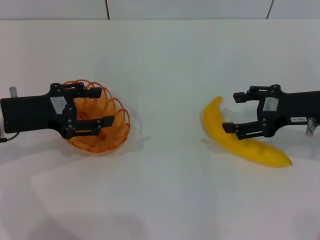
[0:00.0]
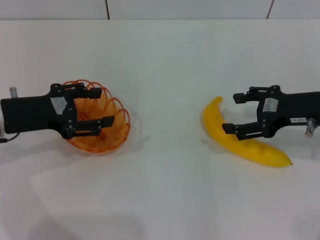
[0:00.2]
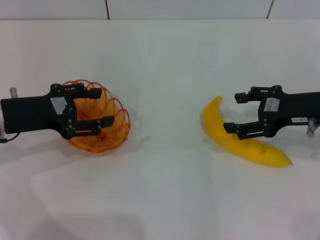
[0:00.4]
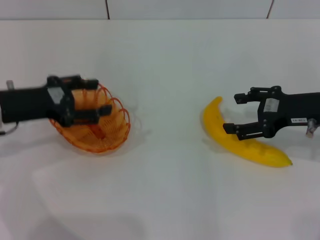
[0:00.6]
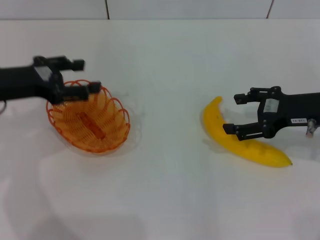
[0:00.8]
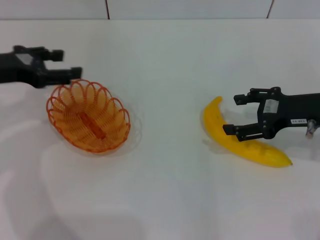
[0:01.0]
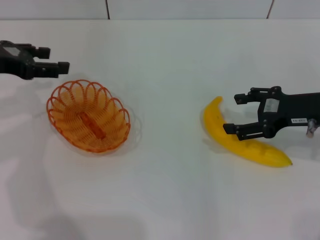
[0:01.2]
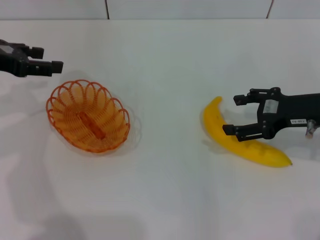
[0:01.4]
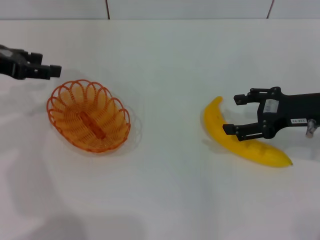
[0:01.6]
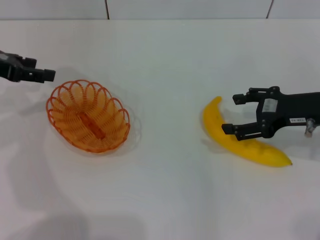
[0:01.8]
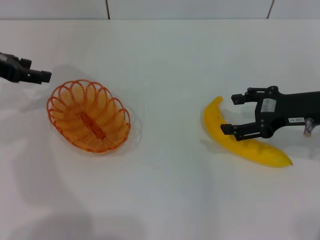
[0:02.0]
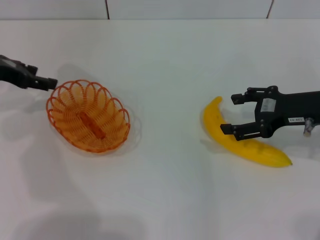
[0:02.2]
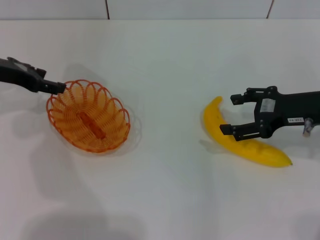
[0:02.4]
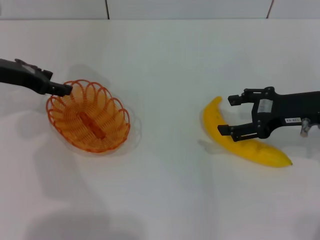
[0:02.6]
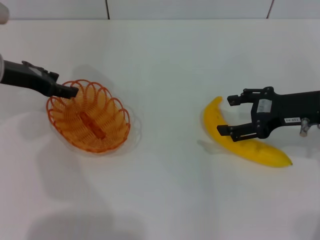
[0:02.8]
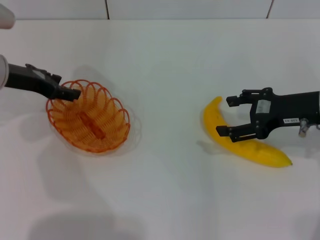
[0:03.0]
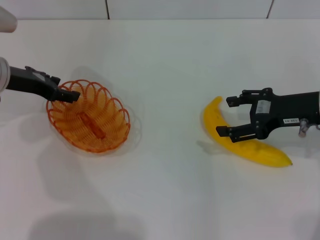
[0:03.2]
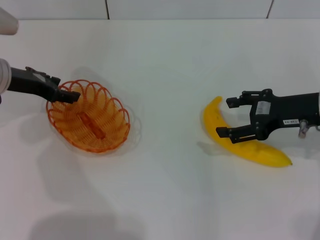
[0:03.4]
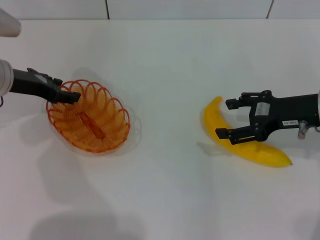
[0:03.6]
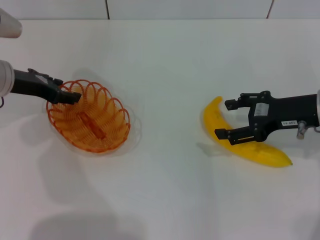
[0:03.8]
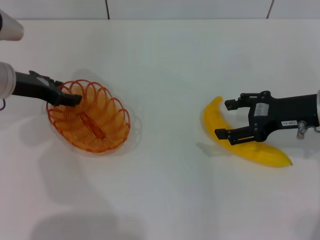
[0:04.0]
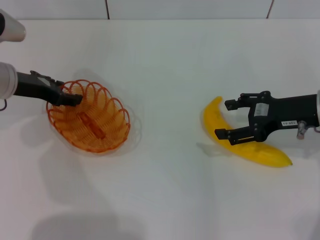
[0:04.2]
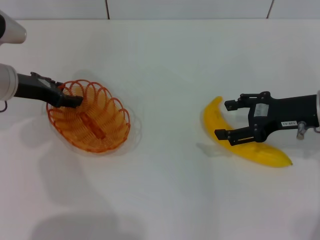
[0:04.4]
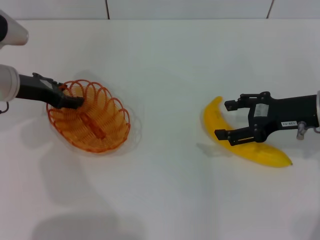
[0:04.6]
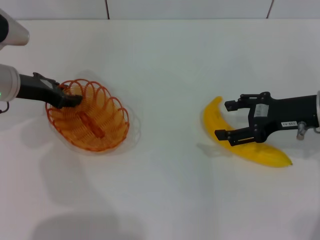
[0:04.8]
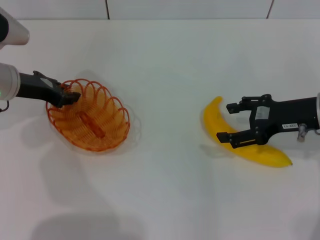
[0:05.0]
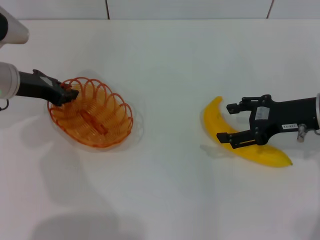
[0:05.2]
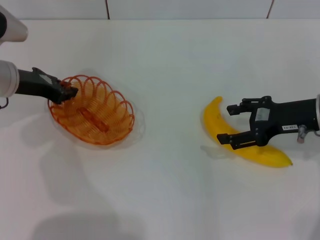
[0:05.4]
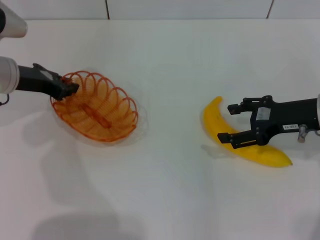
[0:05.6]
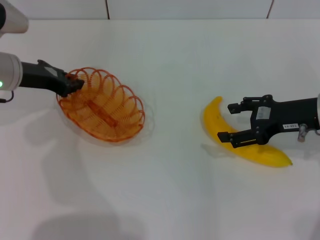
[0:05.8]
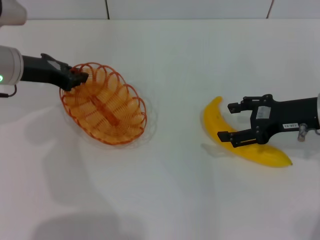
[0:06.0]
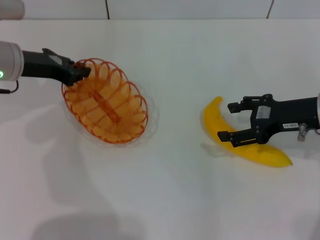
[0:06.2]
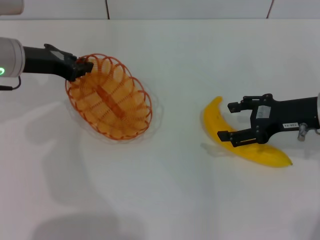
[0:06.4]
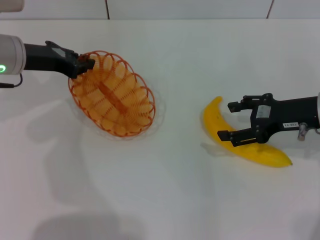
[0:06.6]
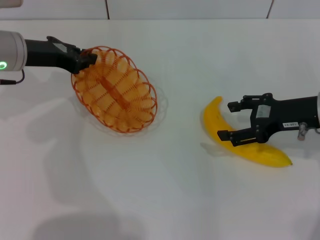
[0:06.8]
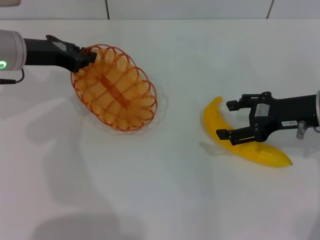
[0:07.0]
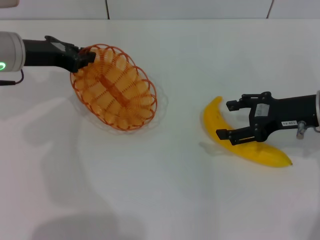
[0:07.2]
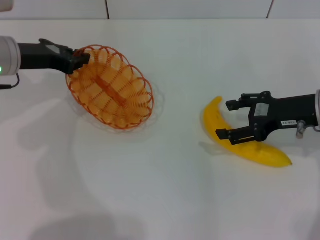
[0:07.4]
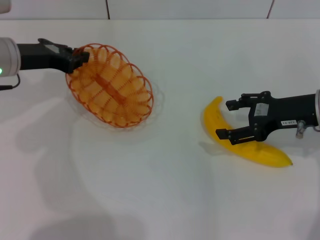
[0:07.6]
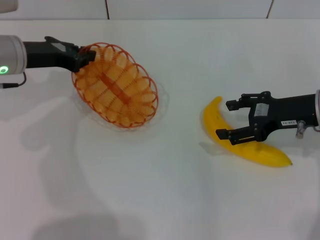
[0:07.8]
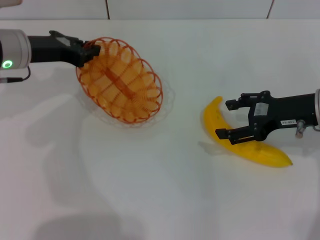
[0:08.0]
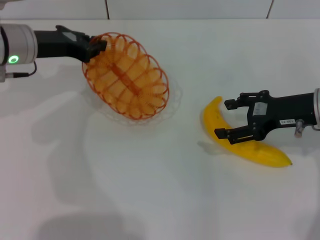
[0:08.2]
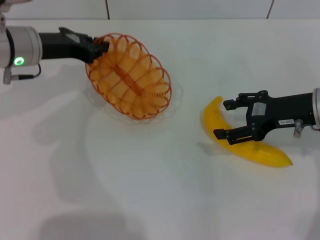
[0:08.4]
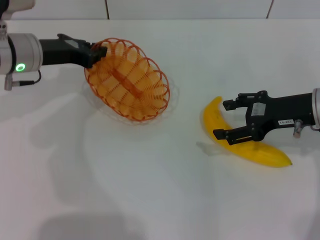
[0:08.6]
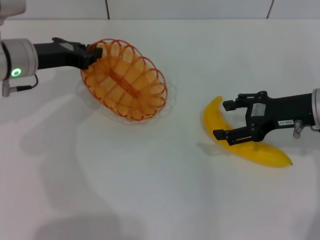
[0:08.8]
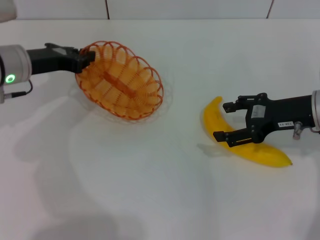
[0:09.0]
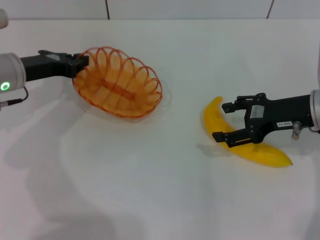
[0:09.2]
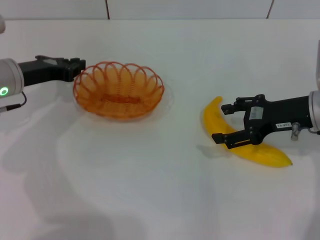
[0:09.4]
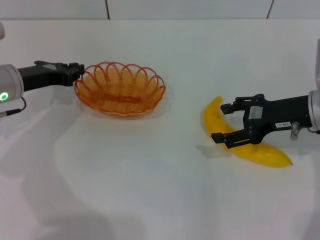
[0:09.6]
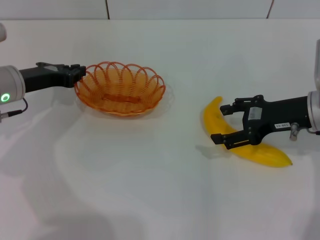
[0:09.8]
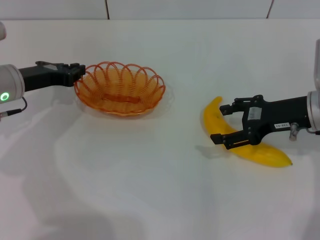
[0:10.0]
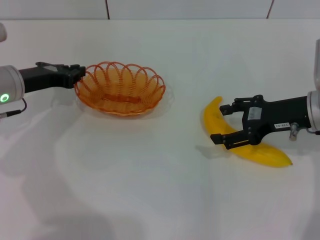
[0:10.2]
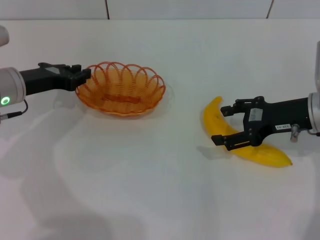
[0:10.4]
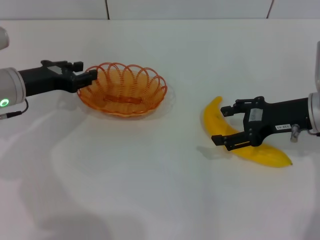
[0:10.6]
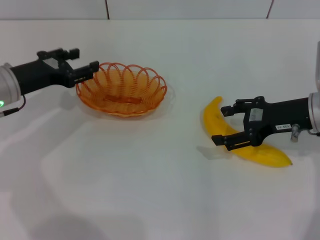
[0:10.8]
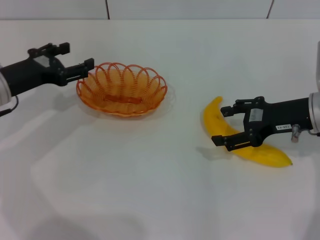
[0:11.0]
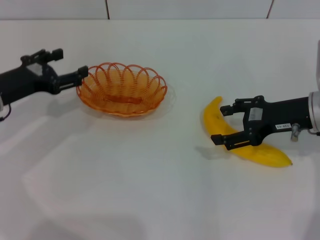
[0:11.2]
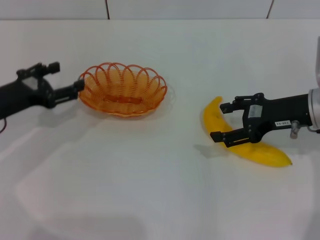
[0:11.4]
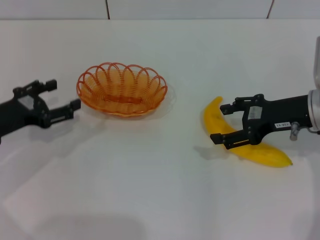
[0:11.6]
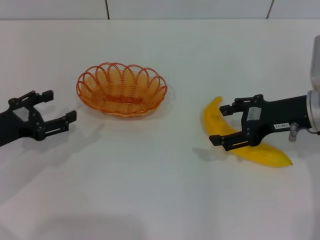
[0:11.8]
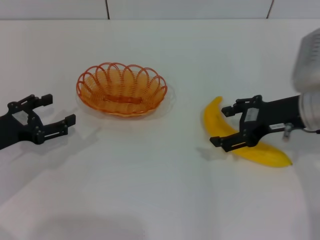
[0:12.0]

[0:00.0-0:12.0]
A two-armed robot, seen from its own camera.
Step, 0:00.0 to 0:05.6: Pick up the basket with the left gripper.
Step, 0:05.8 to 0:10.6: Place the basket in the center of view with the left gripper.
0:00.0 to 0:01.6: The left gripper travels upward and forward by approximately 10 cm.
0:01.6 to 0:03.0: The left gripper is displaced downward by roughly 5 cm.
0:03.0 to 0:04.4: The grippers stay close to where they were, moving slightly.
0:04.4 to 0:06.0: The left gripper closes up.
0:06.0 to 0:09.0: The grippers move only a little.
0:09.0 to 0:10.4: There are only small adjustments of the grippers.
0:10.4 to 0:12.0: The left gripper travels backward and to the left by some 10 cm, and opens up.

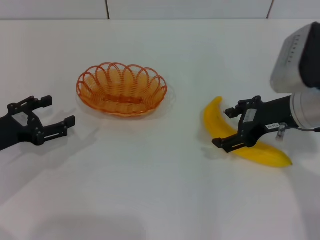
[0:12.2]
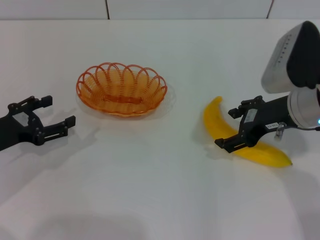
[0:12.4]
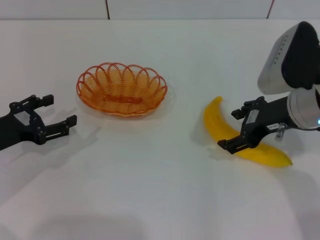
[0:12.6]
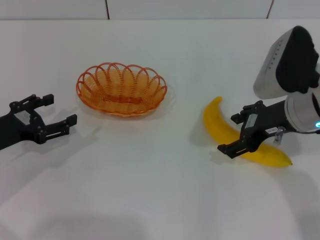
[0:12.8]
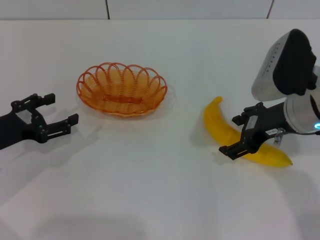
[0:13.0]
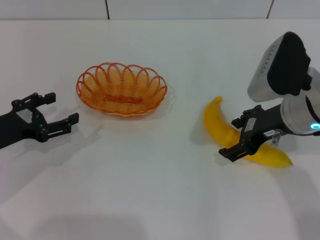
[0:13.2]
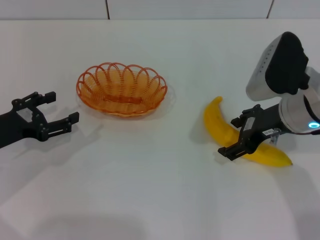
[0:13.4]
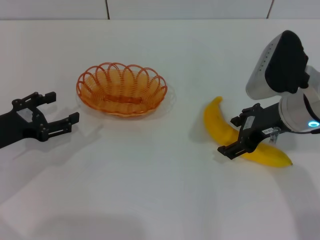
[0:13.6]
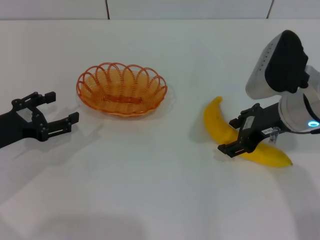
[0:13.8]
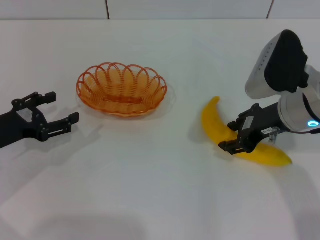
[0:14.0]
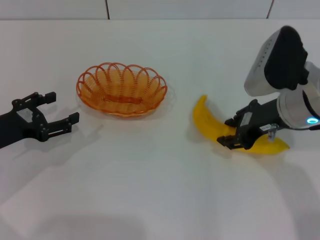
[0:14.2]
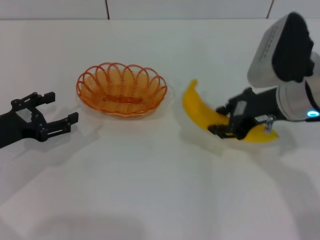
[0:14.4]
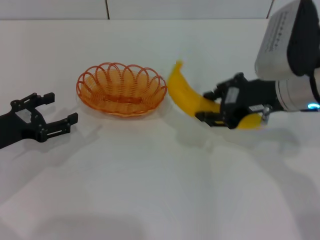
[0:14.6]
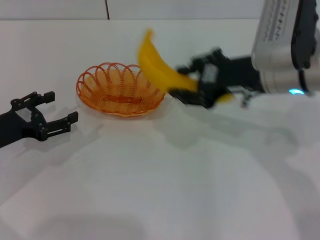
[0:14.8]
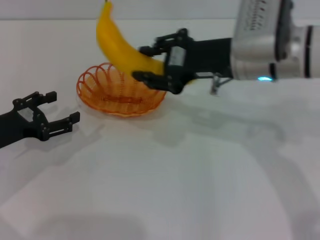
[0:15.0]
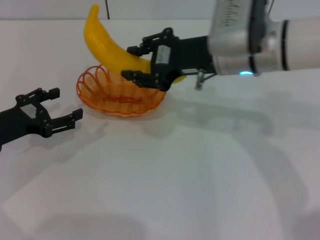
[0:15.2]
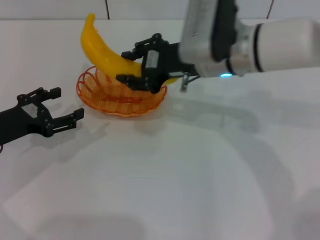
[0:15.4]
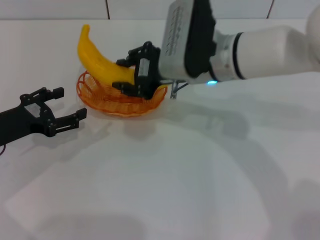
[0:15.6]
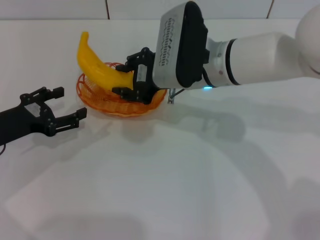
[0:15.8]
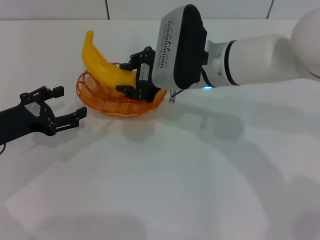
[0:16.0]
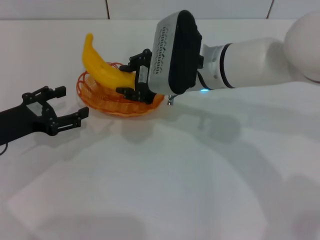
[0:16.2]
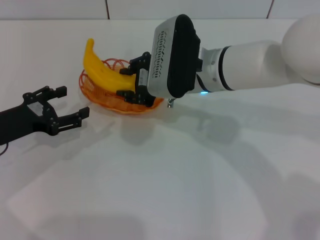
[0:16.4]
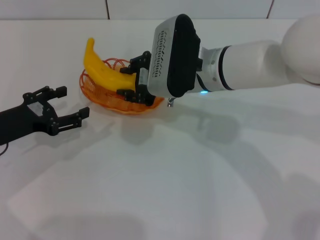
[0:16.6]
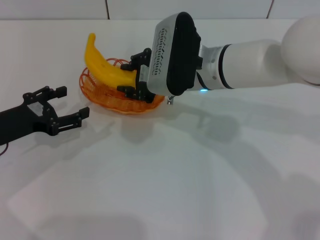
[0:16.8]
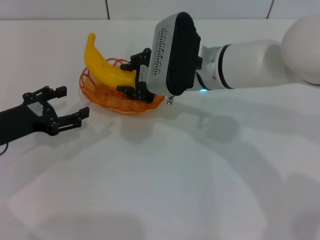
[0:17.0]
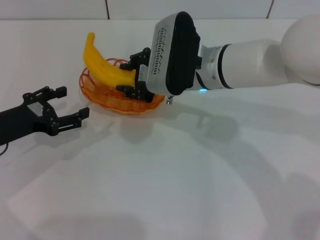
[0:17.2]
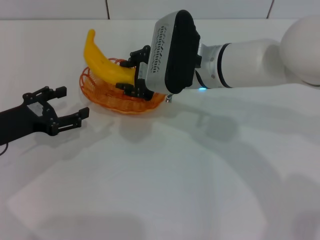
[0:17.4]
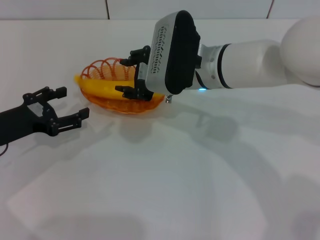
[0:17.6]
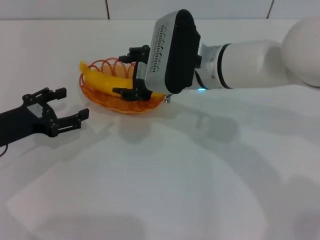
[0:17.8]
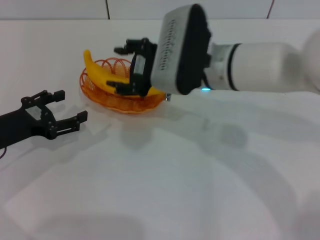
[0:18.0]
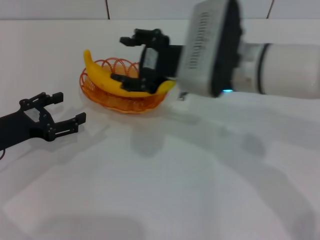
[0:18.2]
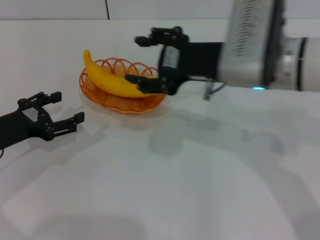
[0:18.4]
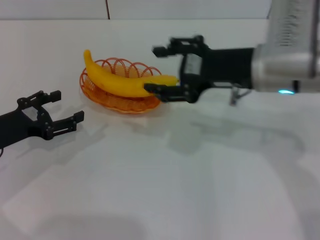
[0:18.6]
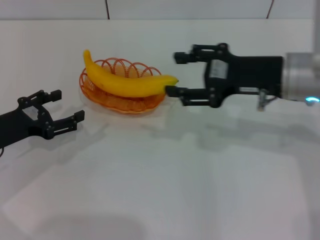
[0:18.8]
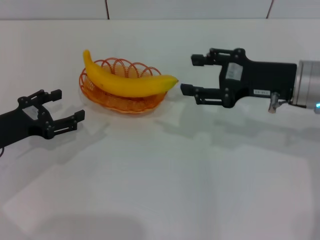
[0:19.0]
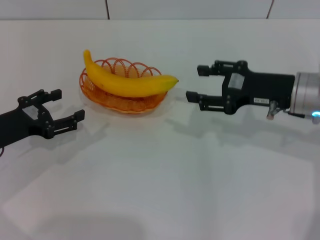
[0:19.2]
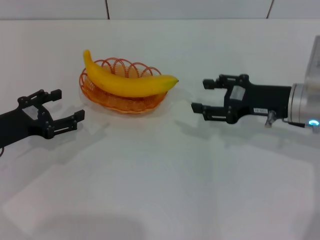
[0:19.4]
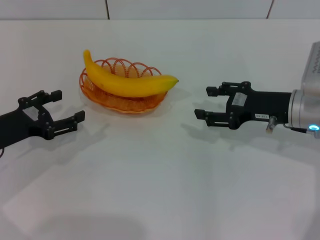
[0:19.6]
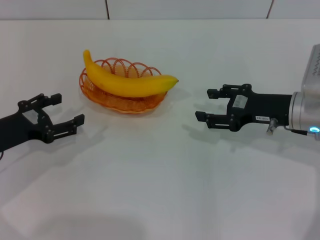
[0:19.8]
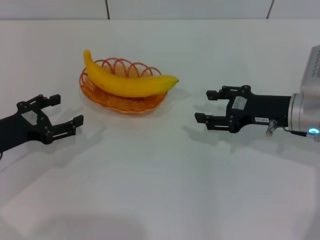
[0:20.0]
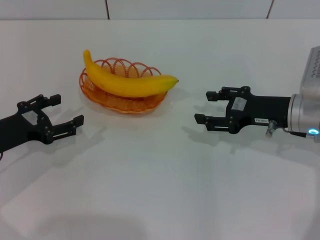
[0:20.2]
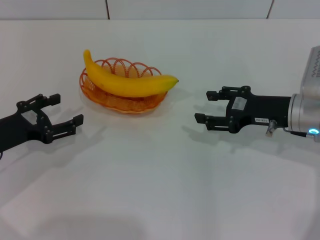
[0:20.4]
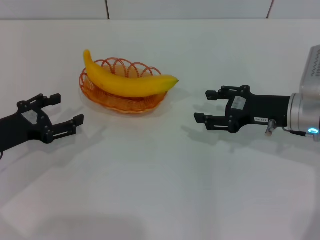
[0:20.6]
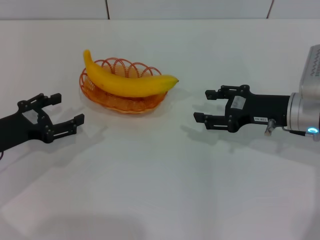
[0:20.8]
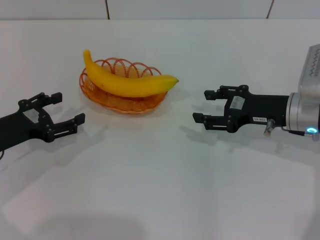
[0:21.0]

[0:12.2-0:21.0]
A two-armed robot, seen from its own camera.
Step, 0:12.2 to 0:14.4: Pick up the banana with the right gripper.
Step, 0:14.6 to 0:17.8: Place the banana into the basket with the right gripper.
0:12.2 to 0:13.6: There are only small adjustments of the grippers.
0:13.6 to 0:15.2: The right gripper travels to the left by about 10 cm, and closes its fingers.
0:15.2 to 0:16.6: The right gripper shifts roughly 5 cm downward.
0:16.6 to 0:18.0: The right gripper opens.
0:18.0 to 0:19.6: The right gripper heads to the right, covering approximately 15 cm.
0:19.6 to 0:21.0: Neither gripper changes place.

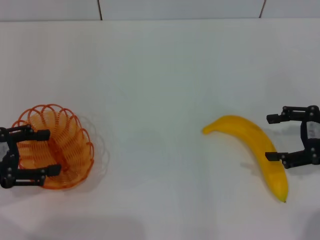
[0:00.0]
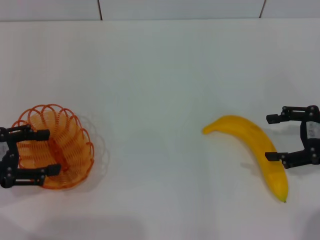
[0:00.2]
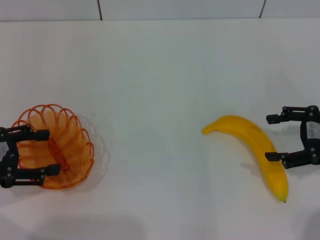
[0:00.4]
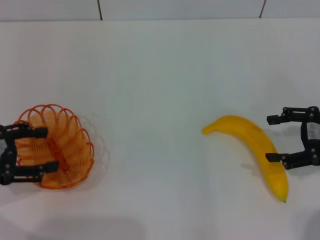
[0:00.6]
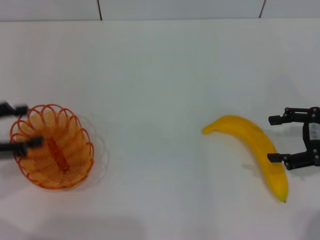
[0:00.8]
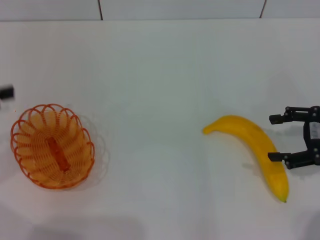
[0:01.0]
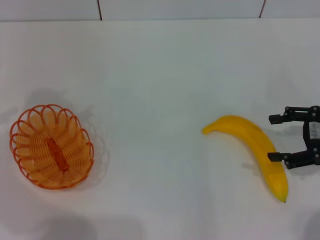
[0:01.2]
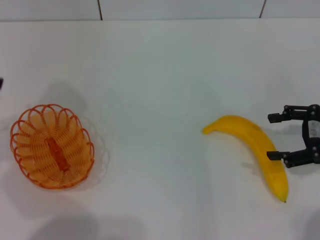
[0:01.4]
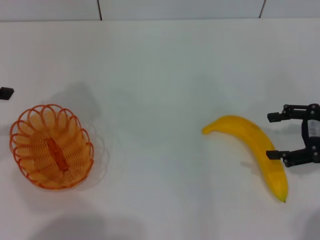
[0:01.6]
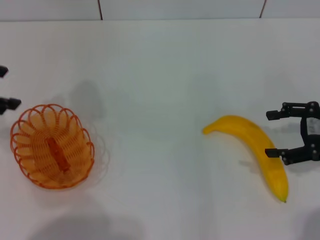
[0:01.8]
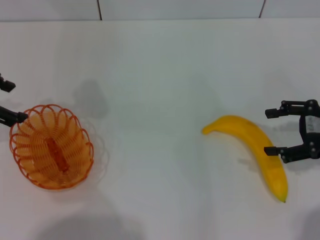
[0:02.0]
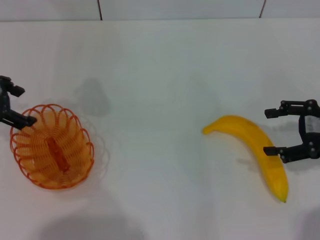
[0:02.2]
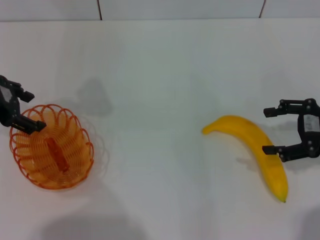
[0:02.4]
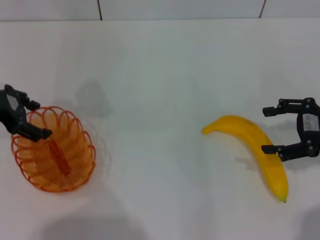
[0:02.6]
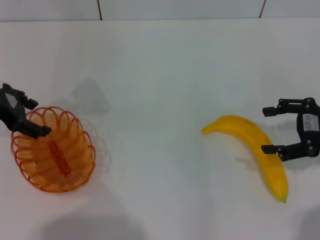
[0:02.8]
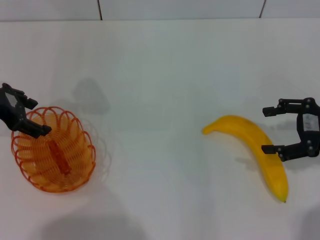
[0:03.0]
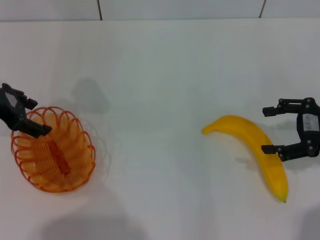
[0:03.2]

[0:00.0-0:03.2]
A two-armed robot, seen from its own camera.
0:00.0 to 0:01.6: The left gripper goes approximately 15 cm upward and forward.
0:01.6 to 0:03.2: The left gripper travels downward and to the right by some 10 cm.
